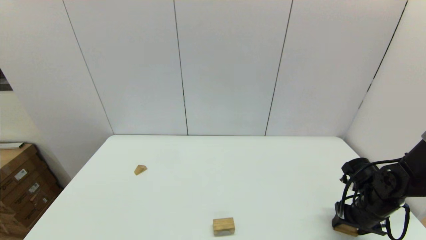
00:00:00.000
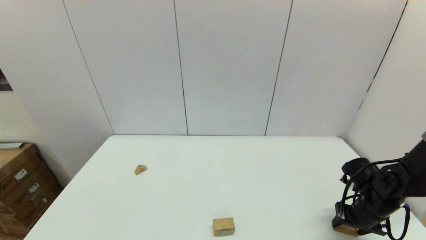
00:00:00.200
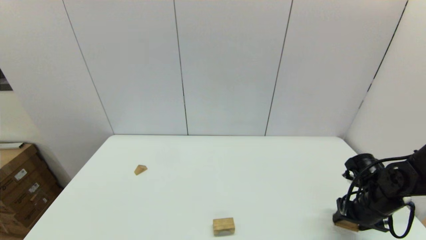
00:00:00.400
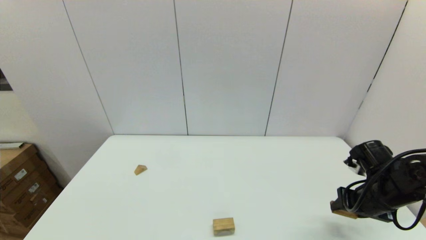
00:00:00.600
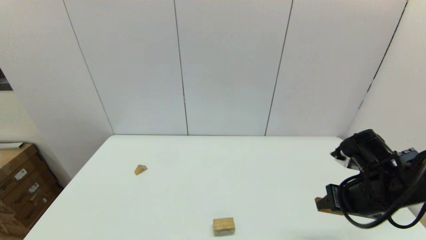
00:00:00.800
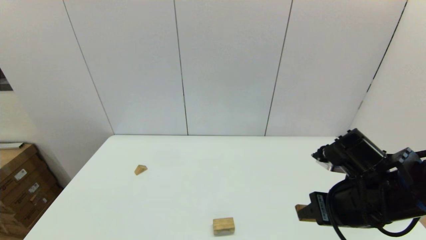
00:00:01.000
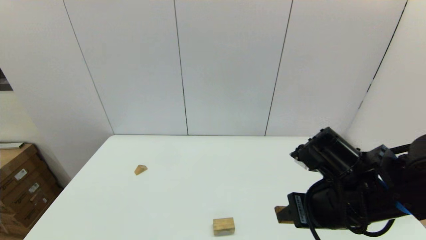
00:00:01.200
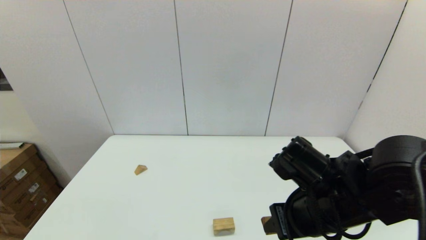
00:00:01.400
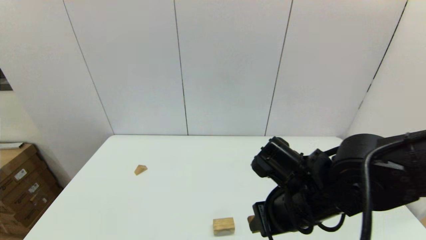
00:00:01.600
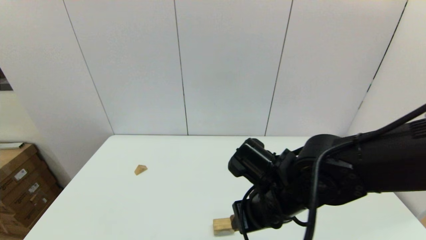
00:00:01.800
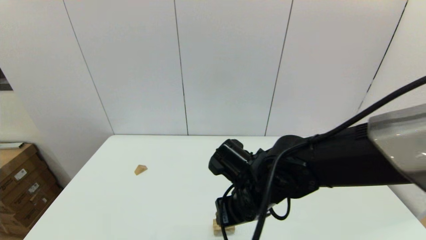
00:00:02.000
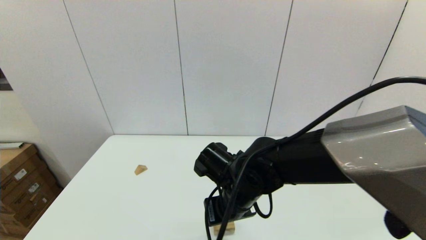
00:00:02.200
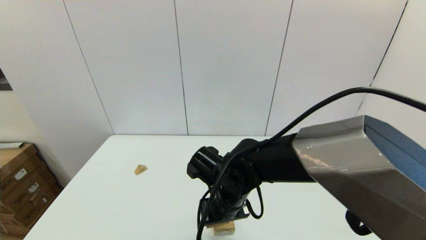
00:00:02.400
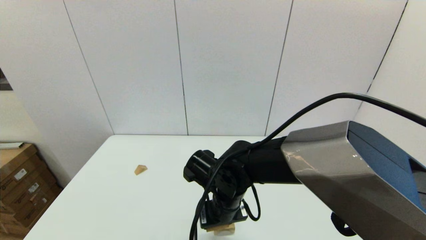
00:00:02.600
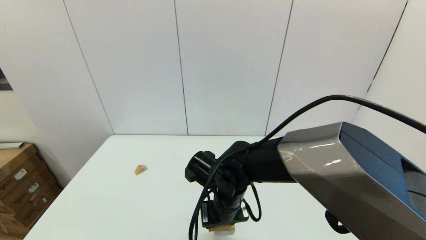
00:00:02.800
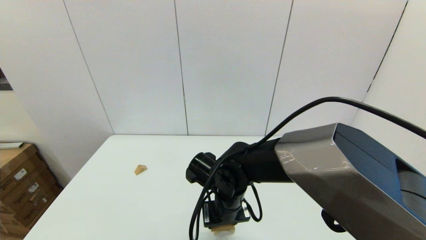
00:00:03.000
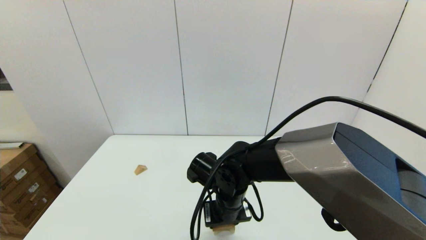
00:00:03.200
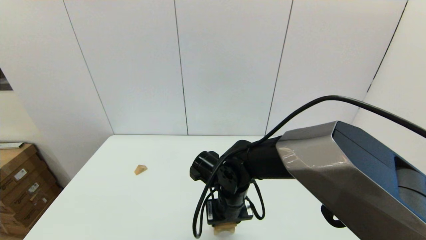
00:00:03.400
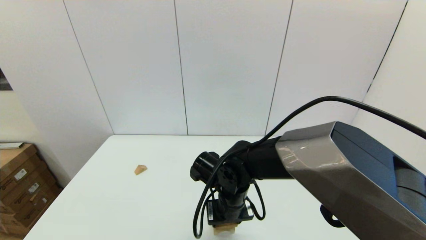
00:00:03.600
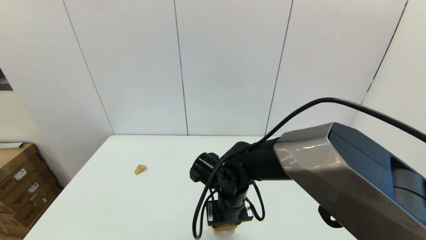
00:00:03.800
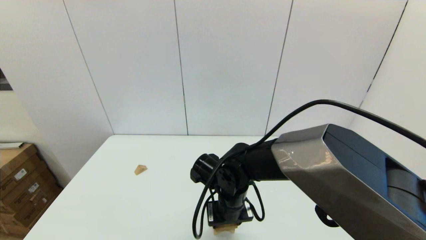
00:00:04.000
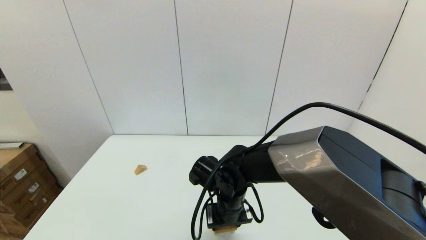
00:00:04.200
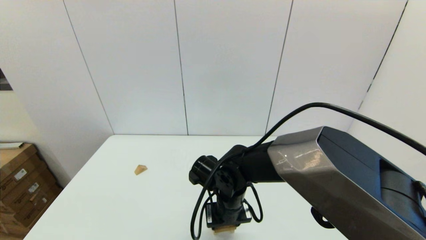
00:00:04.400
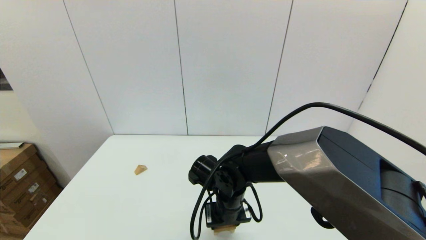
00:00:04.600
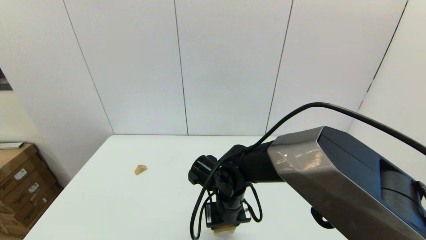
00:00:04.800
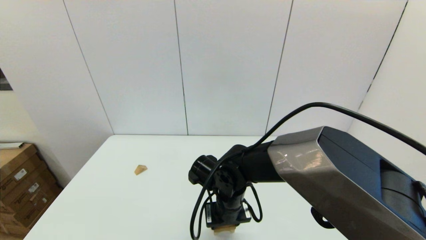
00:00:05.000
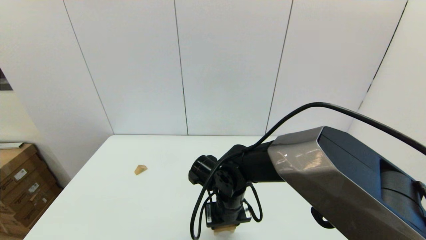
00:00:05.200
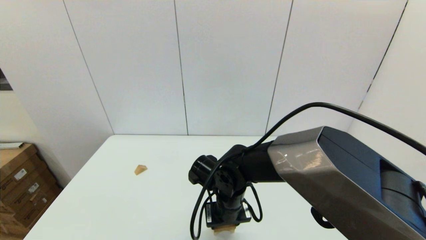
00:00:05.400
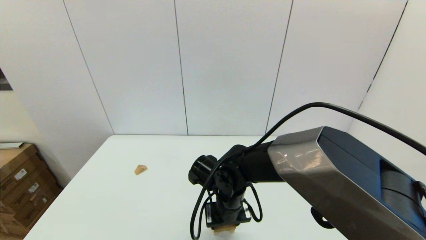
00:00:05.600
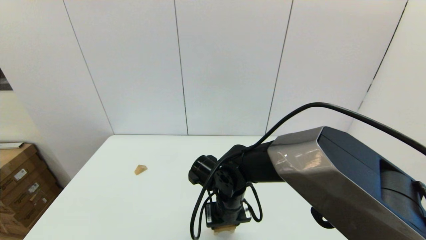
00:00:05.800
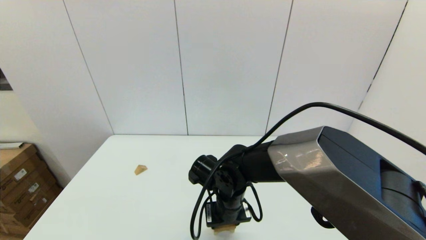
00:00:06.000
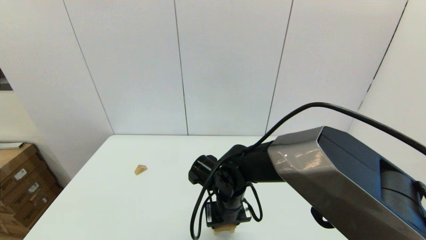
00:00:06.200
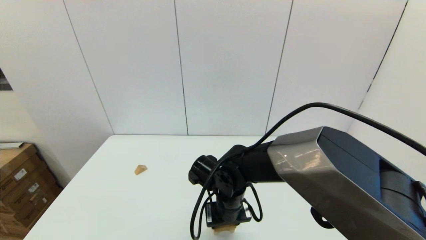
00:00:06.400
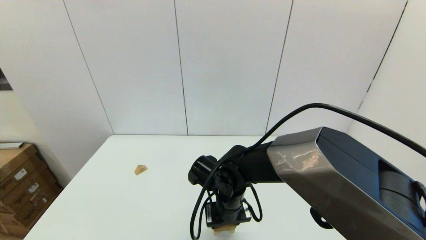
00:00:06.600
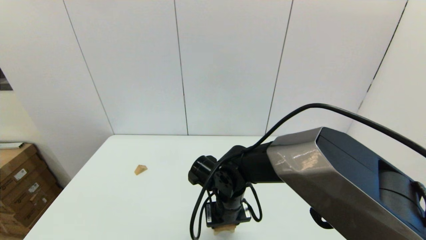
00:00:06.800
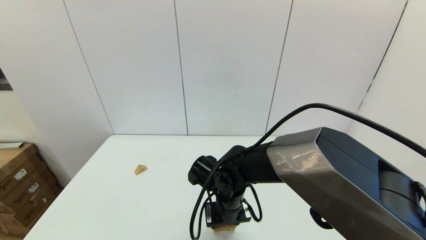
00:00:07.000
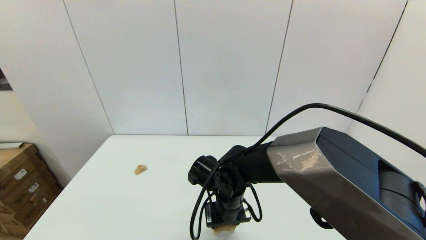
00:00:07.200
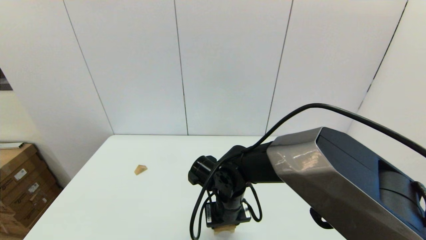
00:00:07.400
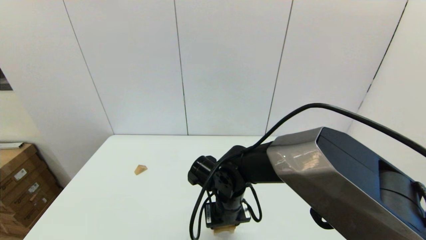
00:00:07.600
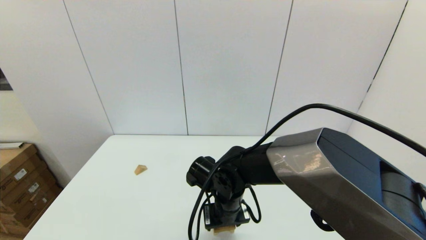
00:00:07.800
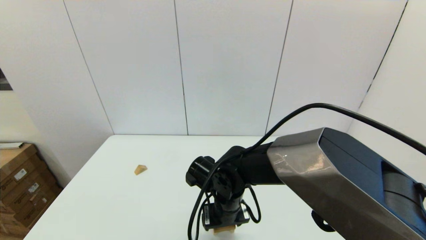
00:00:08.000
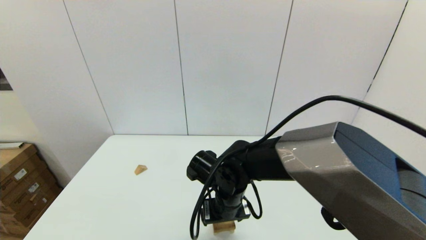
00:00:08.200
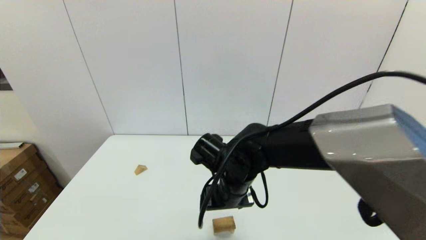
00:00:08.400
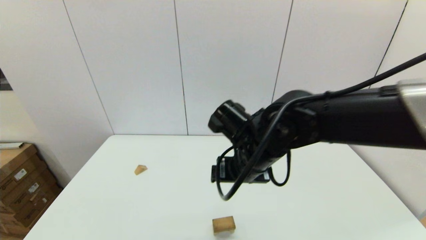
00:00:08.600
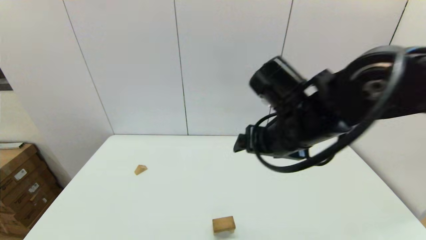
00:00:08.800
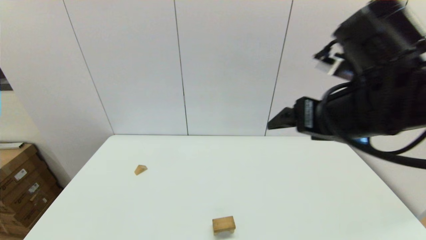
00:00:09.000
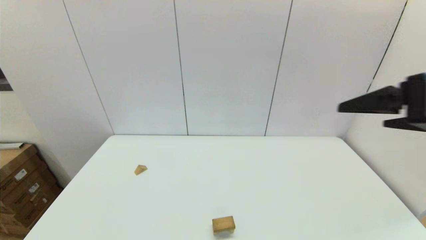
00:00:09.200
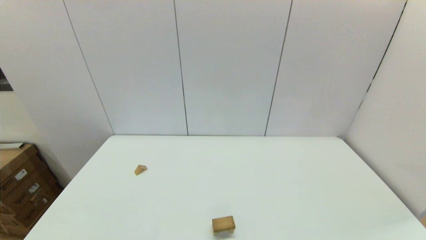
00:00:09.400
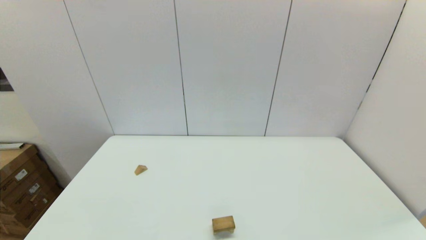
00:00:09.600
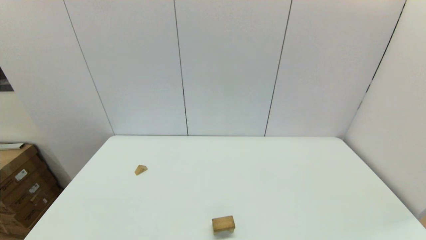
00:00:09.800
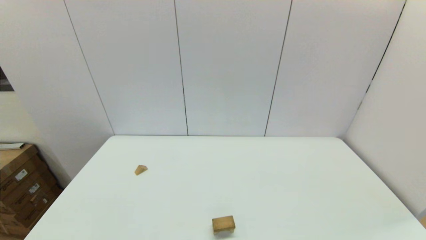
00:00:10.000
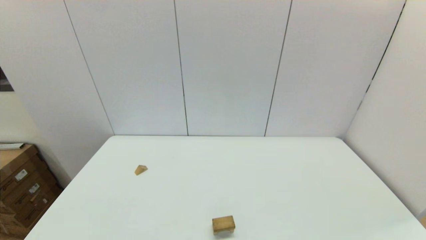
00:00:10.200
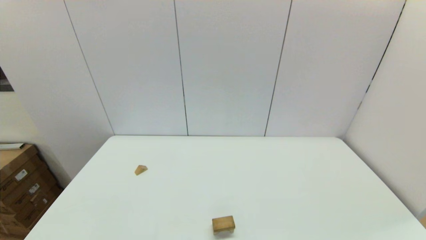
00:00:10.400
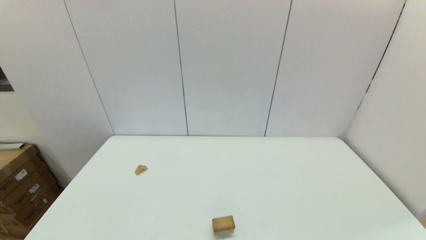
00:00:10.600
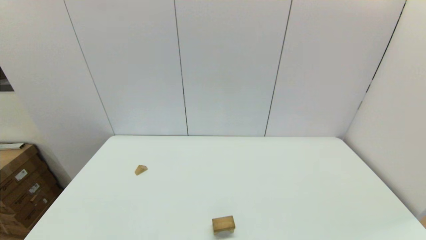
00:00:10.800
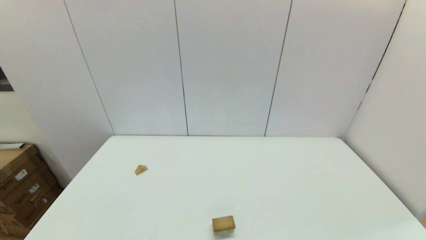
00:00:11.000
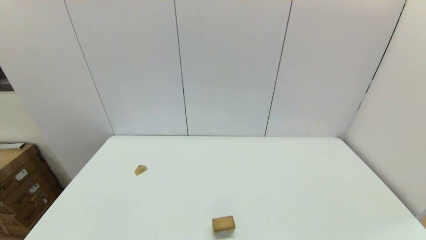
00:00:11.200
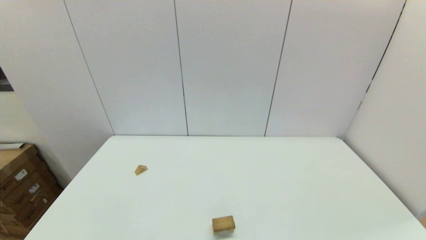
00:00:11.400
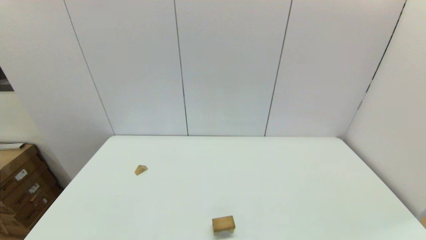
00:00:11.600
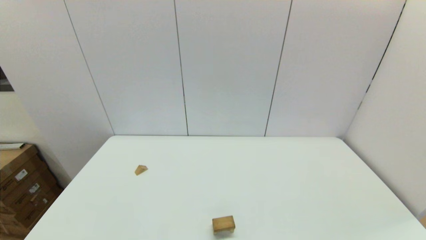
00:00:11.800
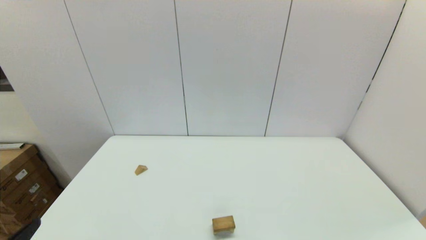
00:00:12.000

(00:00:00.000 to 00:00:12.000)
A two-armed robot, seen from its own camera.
Task of the whole recording: place the arched building blocks in the center of the table, set up the rectangular building blocks, and then set up the triangular building blocks.
Step, 00:00:00.000 - 00:00:07.600: Place the box-shaped block onto the arch-shaped block with the right gripper.
00:00:00.000 - 00:00:01.600: The right gripper goes approximately 25 cm to the left and upward.
00:00:01.600 - 00:00:03.000: The right gripper moves to the left, downward and forward, roughly 15 cm.
00:00:03.000 - 00:00:04.400: The grippers make only small movements.
00:00:04.400 - 00:00:07.600: The two grippers keep their place.
00:00:07.600 - 00:00:09.000: The right gripper shifts some 30 cm upward and to the right, and opens its fingers.
00:00:09.000 - 00:00:10.400: The right gripper is displaced backward, downward and to the right by about 35 cm.

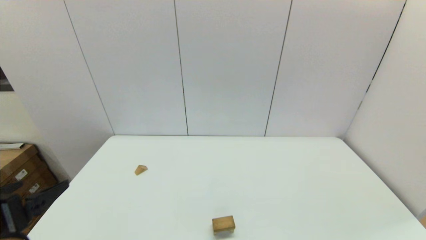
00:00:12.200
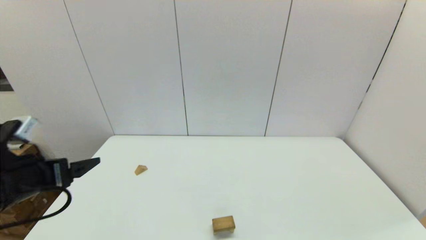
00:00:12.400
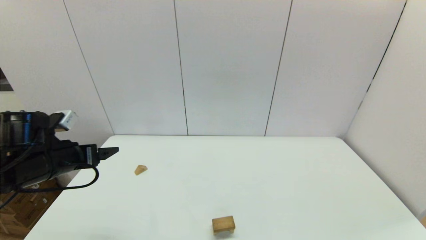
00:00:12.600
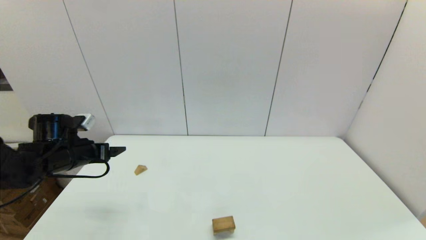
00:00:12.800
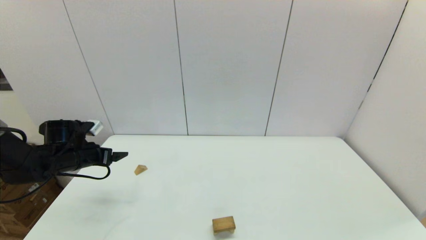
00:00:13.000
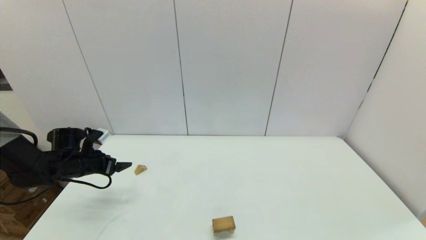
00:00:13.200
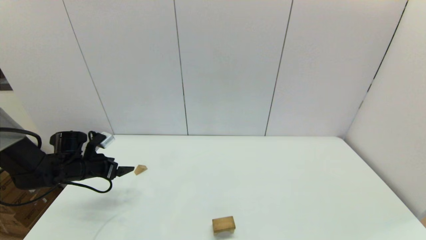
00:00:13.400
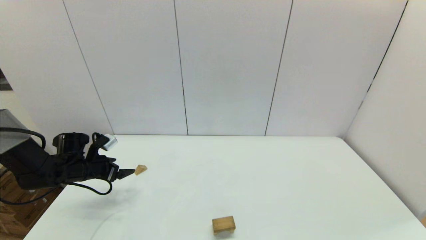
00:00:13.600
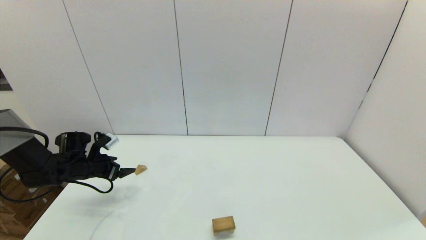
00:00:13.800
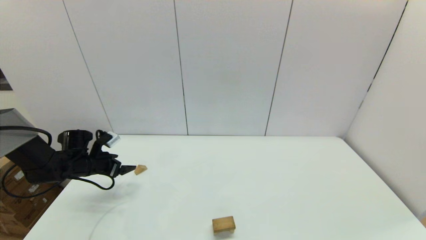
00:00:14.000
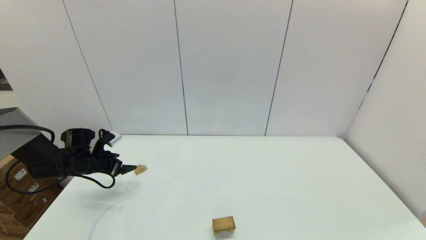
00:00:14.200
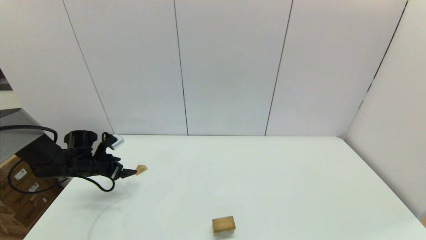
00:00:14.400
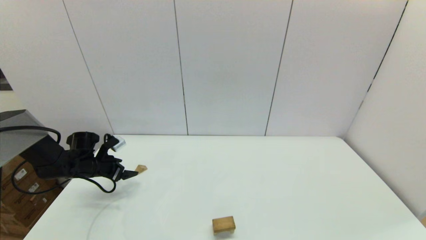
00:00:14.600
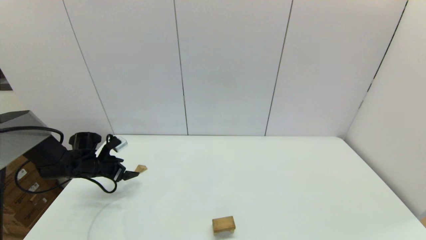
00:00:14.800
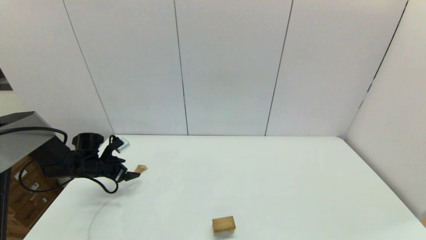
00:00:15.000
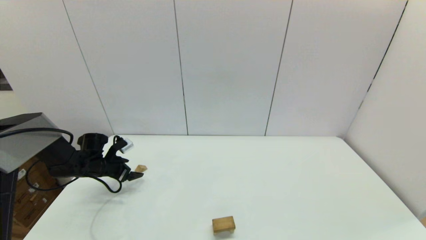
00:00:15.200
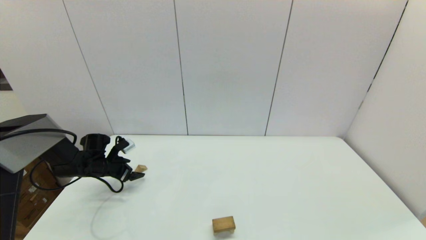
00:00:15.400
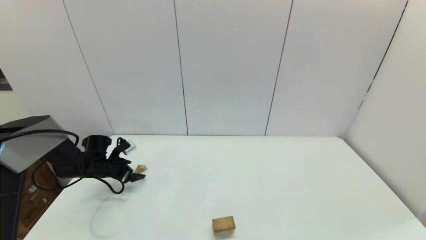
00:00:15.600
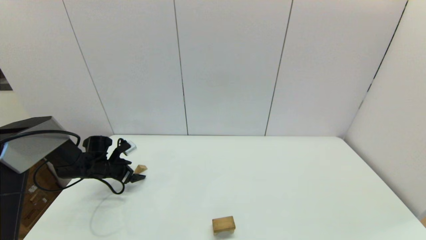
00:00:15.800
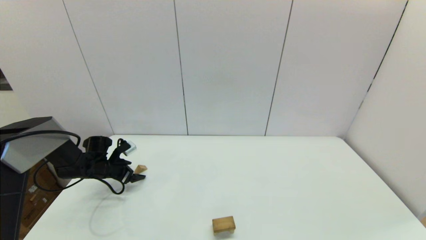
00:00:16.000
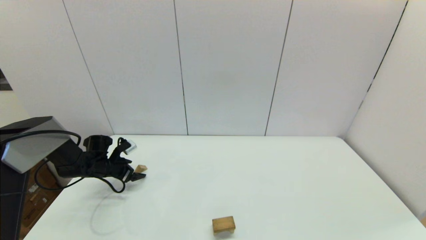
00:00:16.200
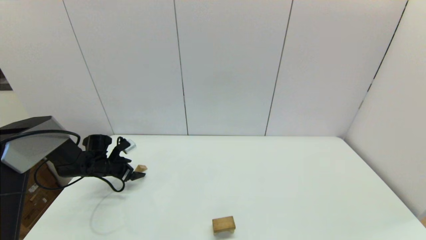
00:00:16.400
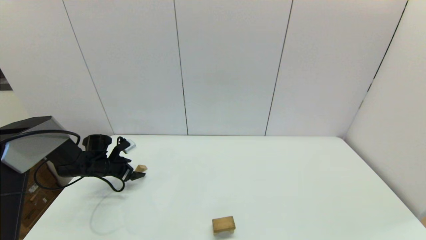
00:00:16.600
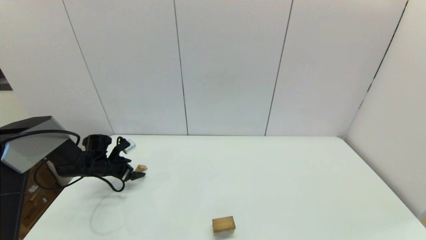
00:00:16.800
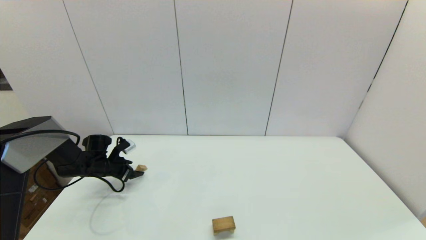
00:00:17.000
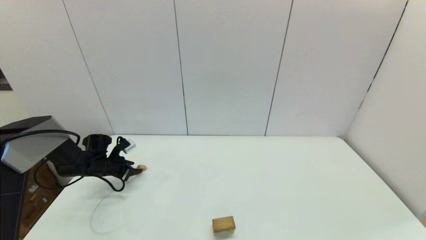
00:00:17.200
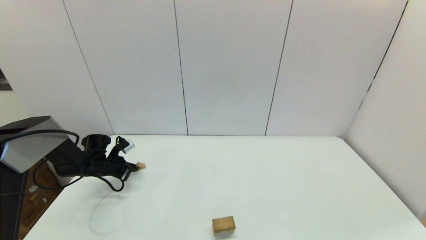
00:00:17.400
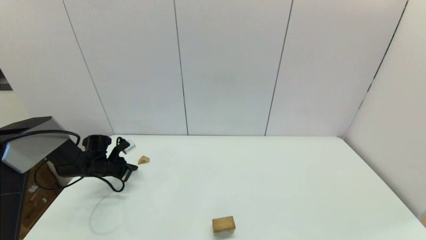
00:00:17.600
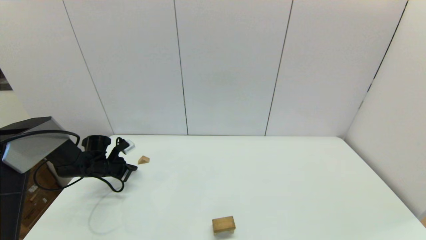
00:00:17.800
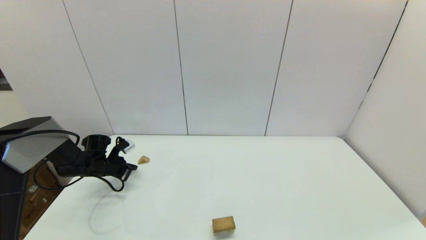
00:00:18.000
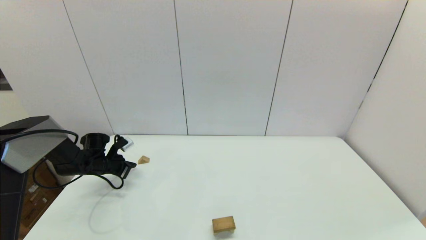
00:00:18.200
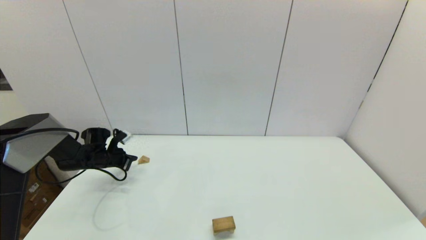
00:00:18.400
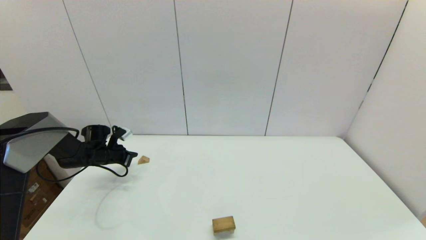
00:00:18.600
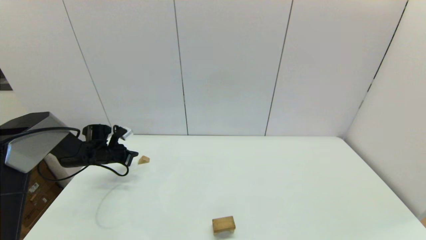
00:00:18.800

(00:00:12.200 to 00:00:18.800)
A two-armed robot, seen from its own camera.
Task of the whole recording: place the arched building blocks in the center of the table, set up the rectangular building blocks, and then set up the triangular building blocks.
00:00:12.200 - 00:00:13.800: The left gripper shifts some 30 cm forward and downward.
00:00:13.800 - 00:00:15.400: The left gripper shifts by about 5 cm.
00:00:15.400 - 00:00:17.200: The left gripper closes up.
00:00:17.200 - 00:00:18.800: The left gripper closes its fingers.
